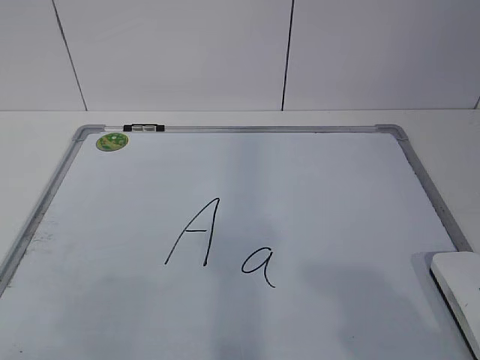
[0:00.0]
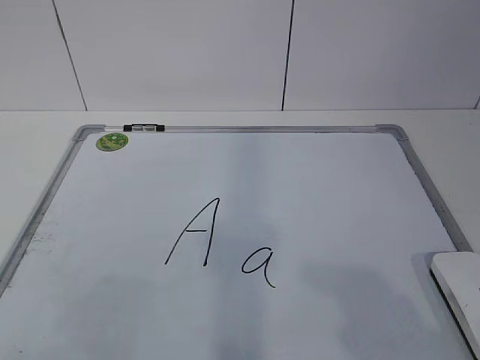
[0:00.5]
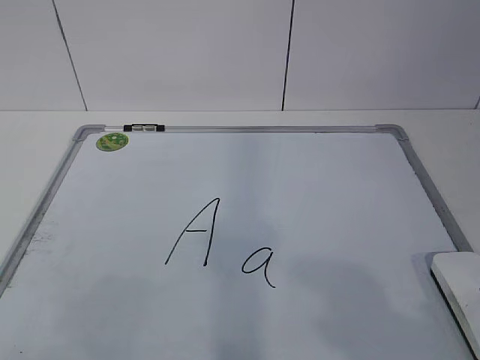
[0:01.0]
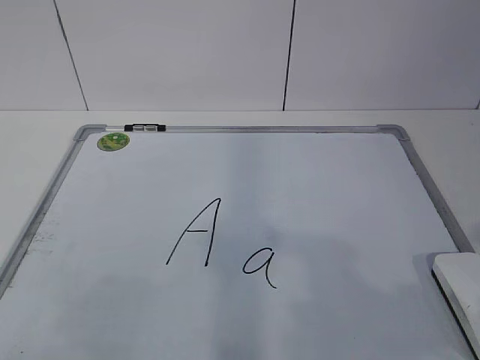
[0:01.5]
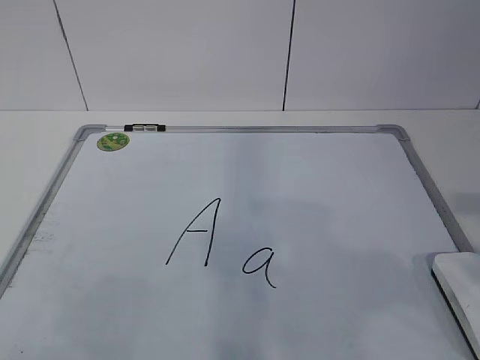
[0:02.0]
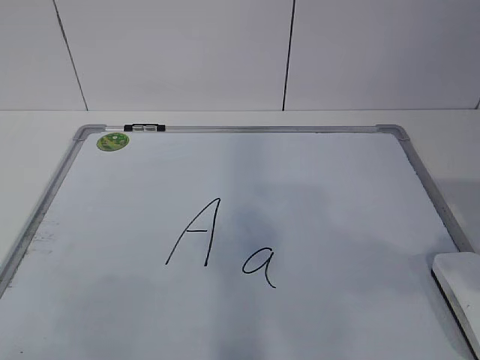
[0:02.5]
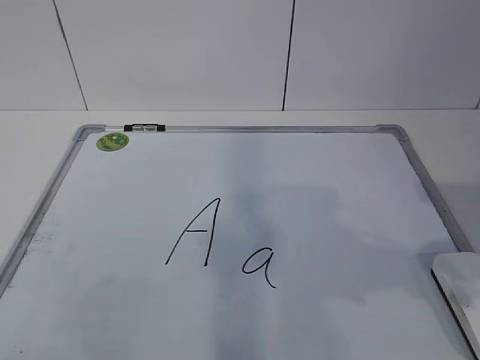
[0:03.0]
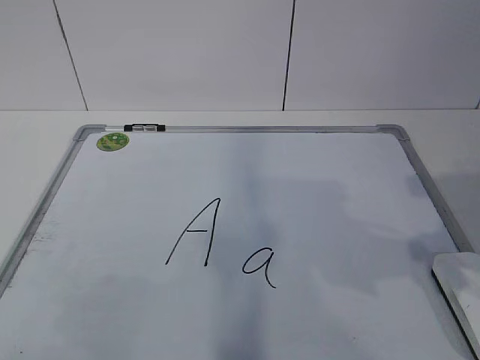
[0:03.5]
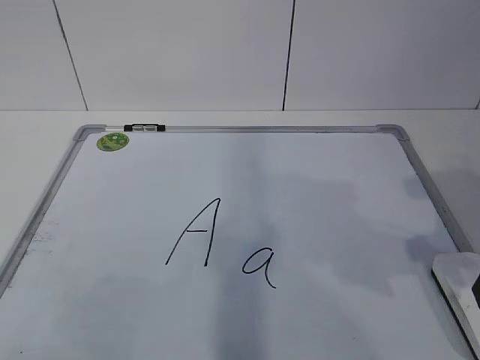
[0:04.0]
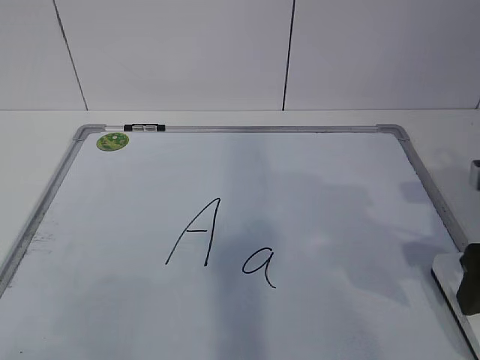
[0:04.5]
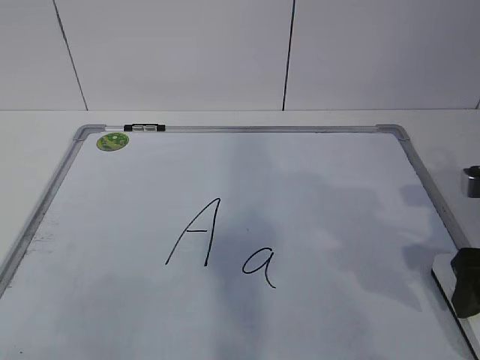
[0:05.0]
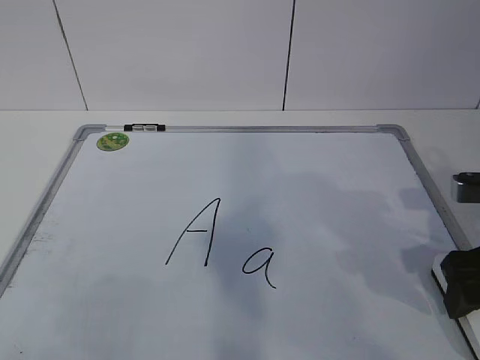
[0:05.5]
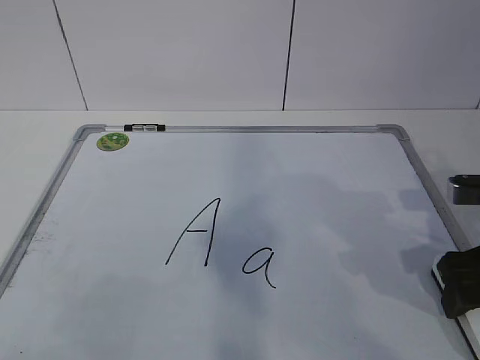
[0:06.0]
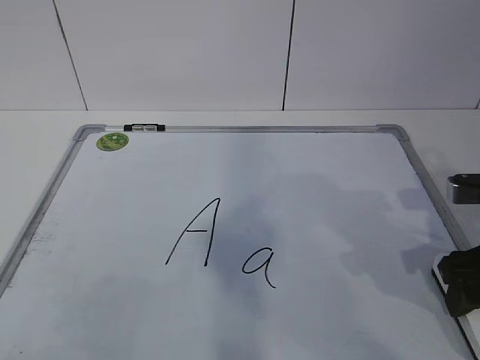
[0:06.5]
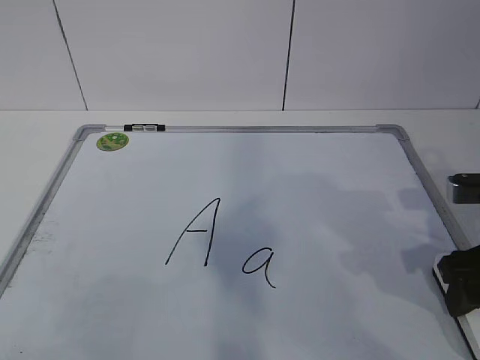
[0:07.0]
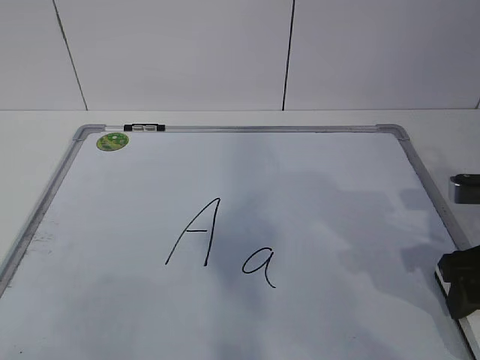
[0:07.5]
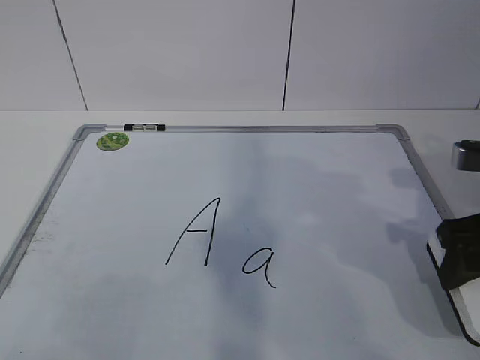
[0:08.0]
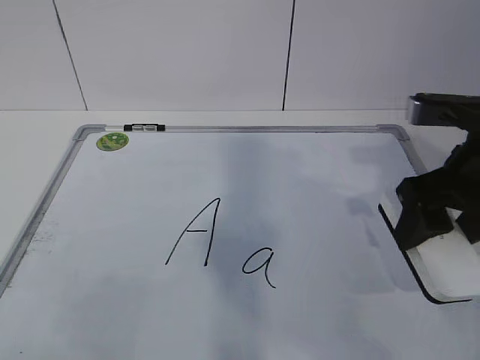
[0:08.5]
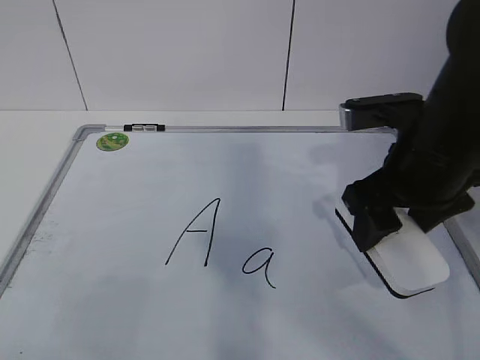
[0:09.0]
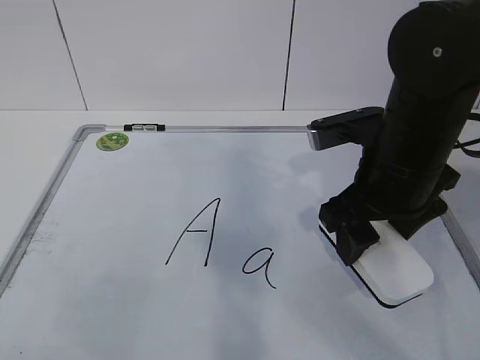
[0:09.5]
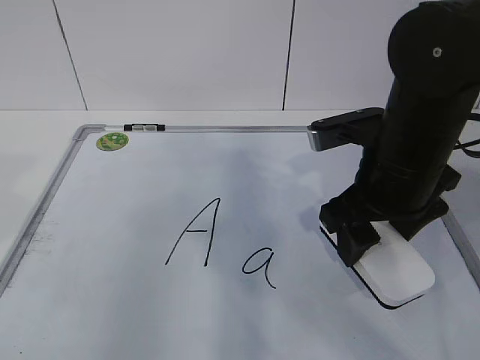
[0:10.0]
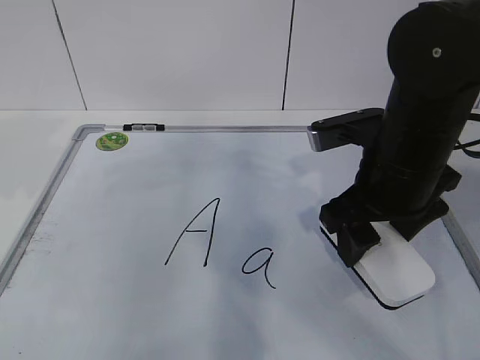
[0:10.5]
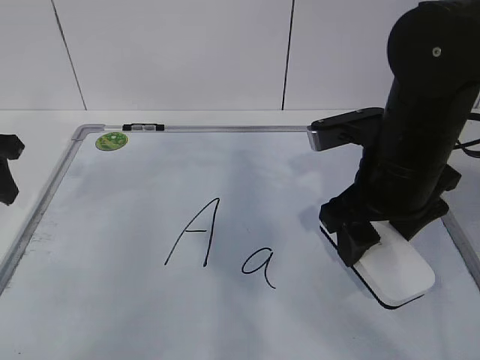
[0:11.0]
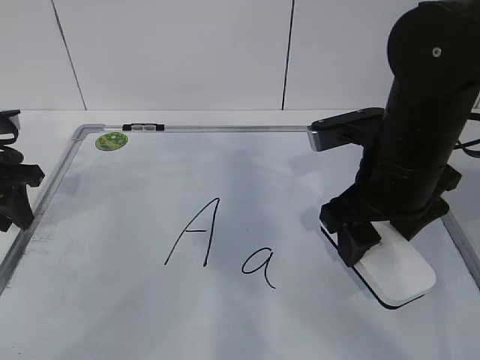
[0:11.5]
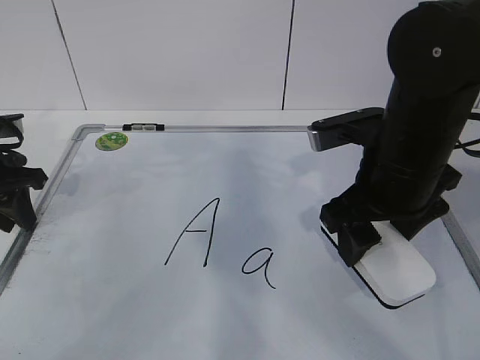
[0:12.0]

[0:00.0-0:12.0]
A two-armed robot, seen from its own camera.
Task of the whole recording: pick up the eraser on the blackboard and erase the letter "a".
Step, 0:06.5 to 0:11.5: Hold the drawing board steady with your left hand.
0:02.0 to 0:04.0: The right gripper moves forward and downward, roughly 15 cm, and opens its fingers.
0:04.0 to 0:06.0: The right gripper is displaced downward by approximately 5 cm.
0:06.0 to 0:08.0: The right gripper closes.
0:08.0 to 0:10.0: The left gripper shifts some 10 cm forward and upward; the right gripper goes roughly 10 cm to the left.
0:10.0 to 0:12.0: The left gripper heads forward and downward, covering roughly 30 cm.

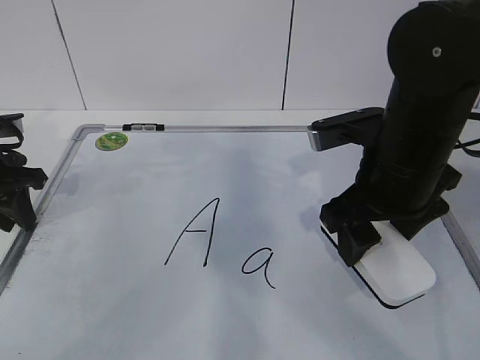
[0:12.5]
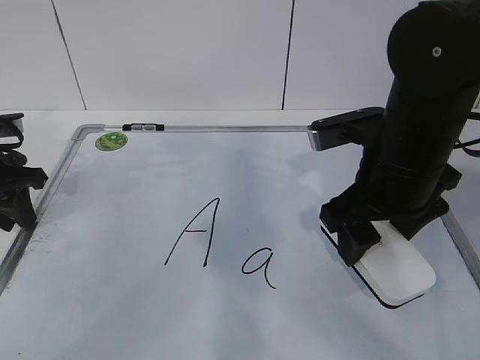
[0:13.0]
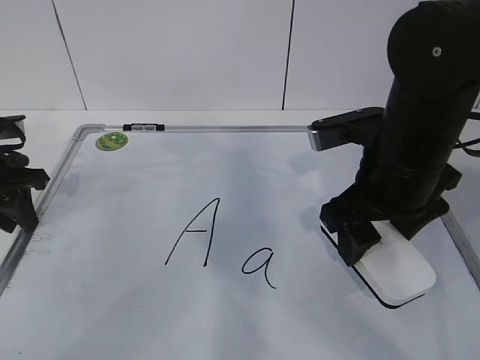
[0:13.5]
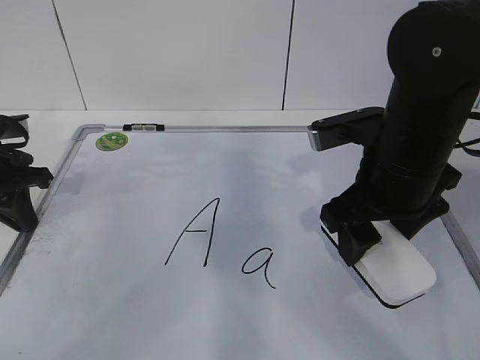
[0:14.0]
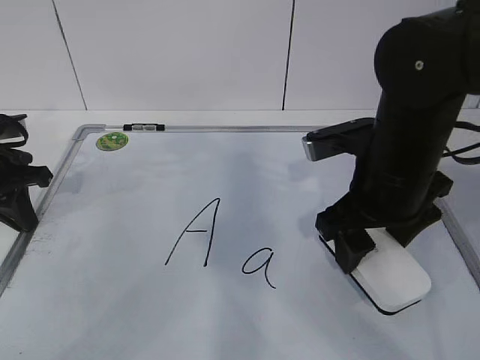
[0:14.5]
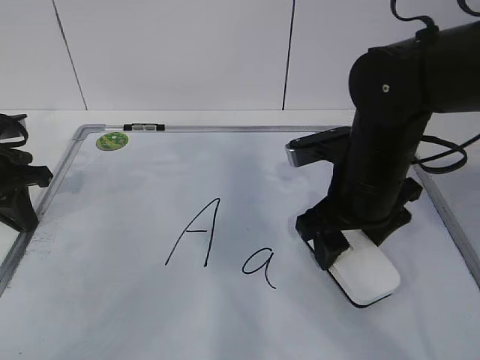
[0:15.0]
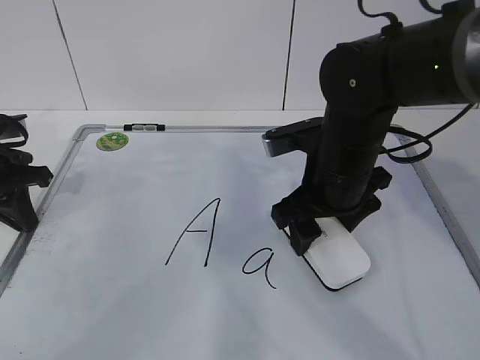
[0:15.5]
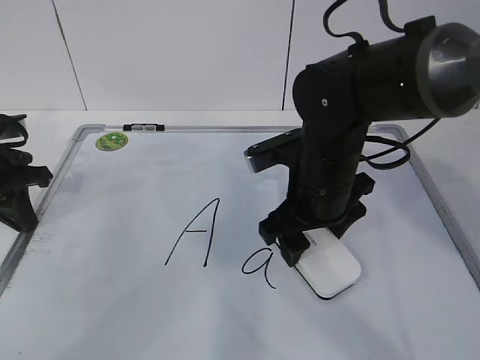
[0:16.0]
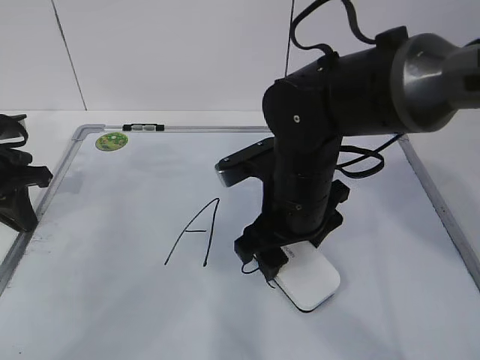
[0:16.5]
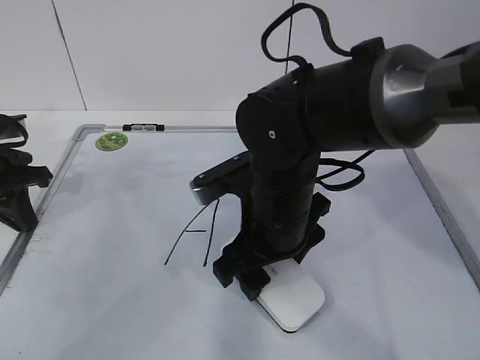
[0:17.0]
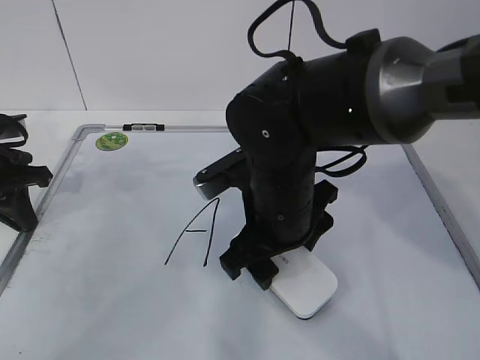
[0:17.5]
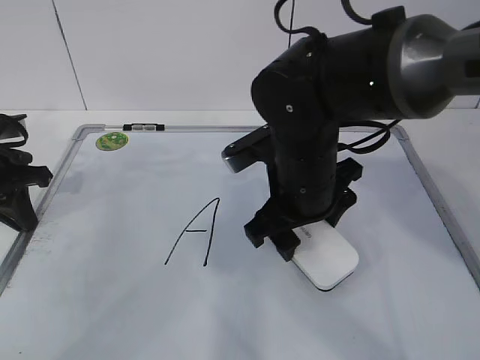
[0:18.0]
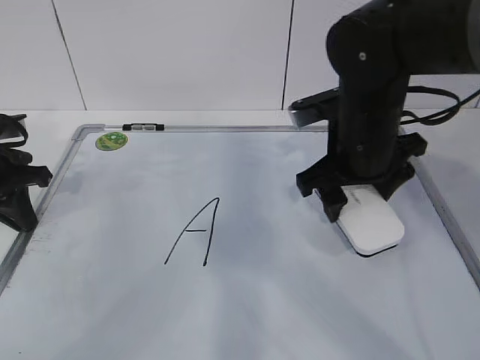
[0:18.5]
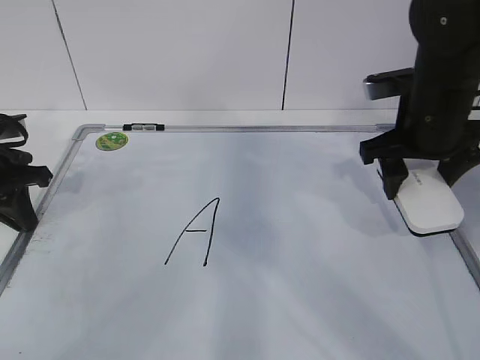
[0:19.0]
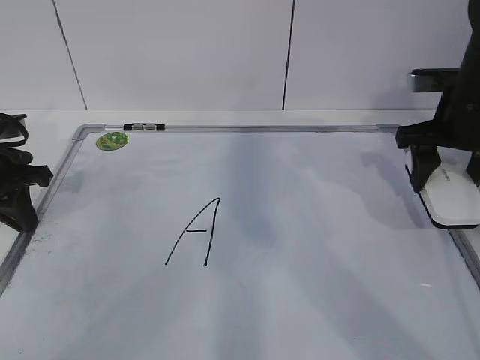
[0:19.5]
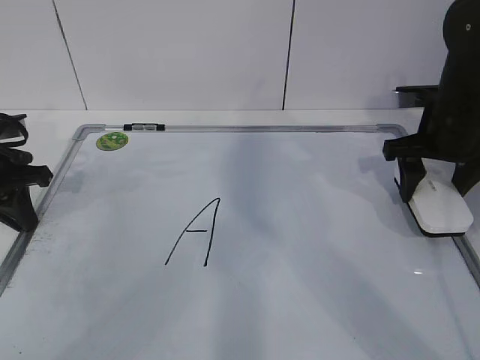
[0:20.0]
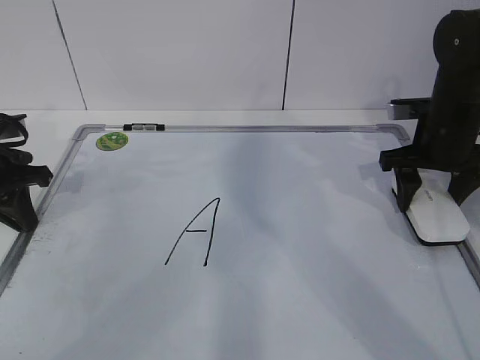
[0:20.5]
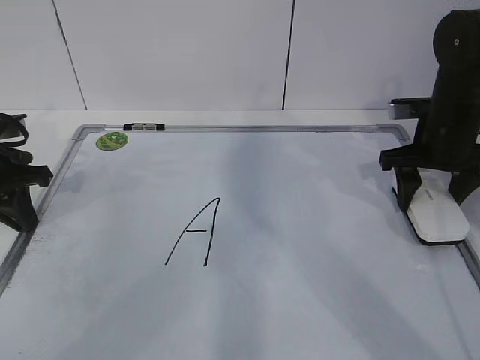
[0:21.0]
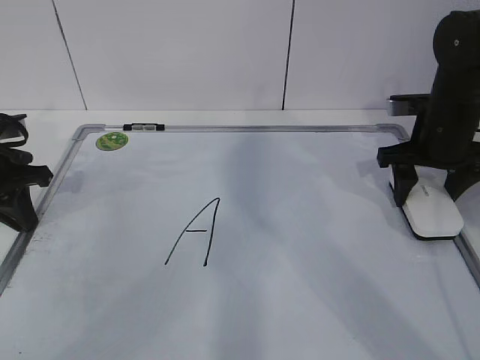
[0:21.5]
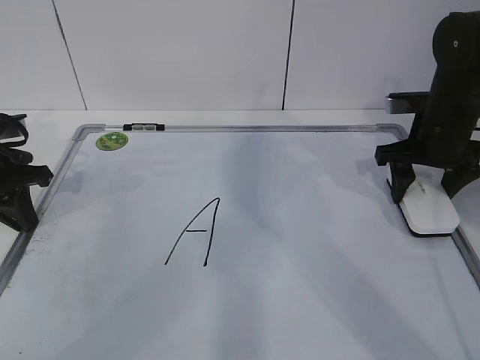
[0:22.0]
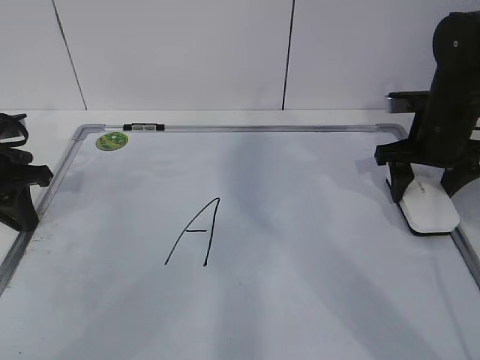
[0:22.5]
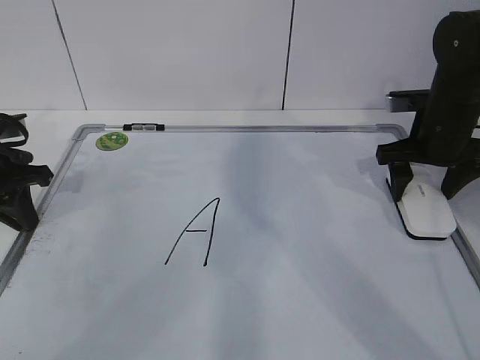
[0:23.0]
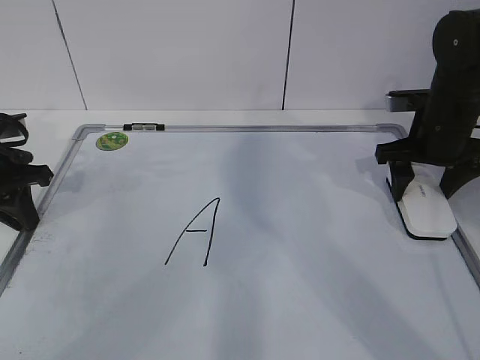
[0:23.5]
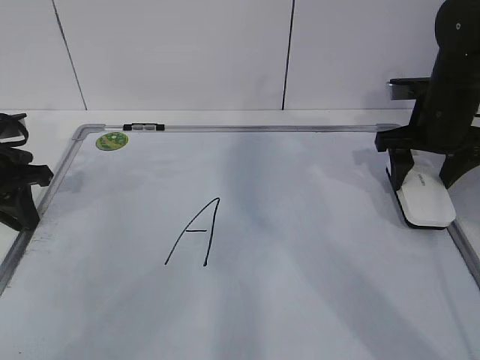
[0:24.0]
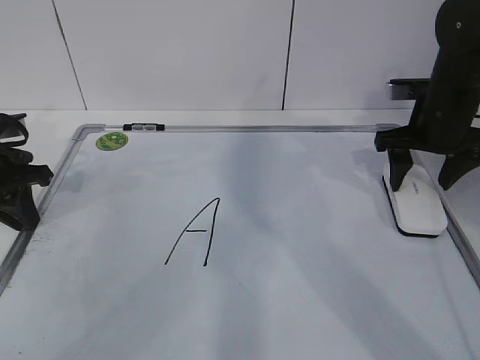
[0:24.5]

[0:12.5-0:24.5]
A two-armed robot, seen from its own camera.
Task of the whole recording: pick up the eraser on the blackboard and erase the letter "a".
Step, 0:12.5 to 0:15.0: Erase the letter a with your right hand.
Step, 0:15.5 to 0:20.0: Put down the eraser with your right hand.
0:12.5 to 0:14.5: The left gripper closes its fingers.
0:14.5 to 0:16.5: The right gripper shifts some 10 cm to the left.
0:16.5 to 0:18.5: The right gripper shifts some 5 cm to the right.
0:18.5 to 0:20.5: The right gripper heads to the right and forward, covering roughly 15 cm.
0:20.5 to 0:24.5: The grippers stay close to where they were, moving slightly.

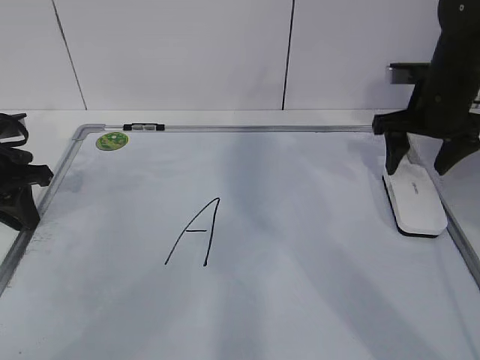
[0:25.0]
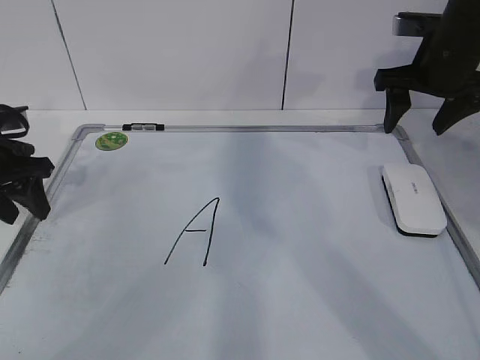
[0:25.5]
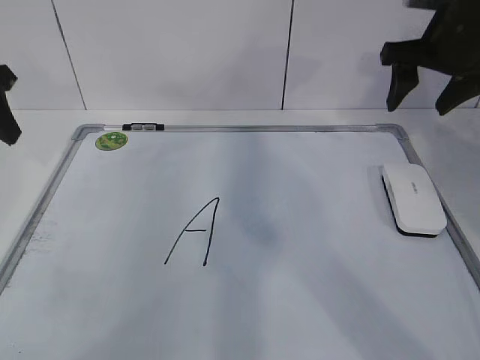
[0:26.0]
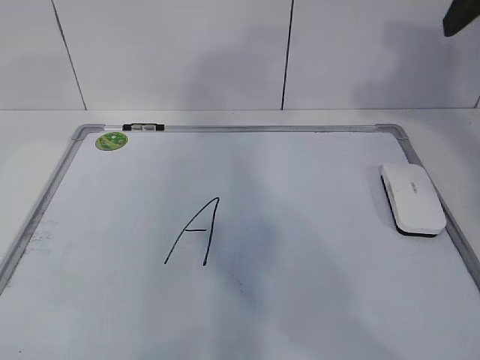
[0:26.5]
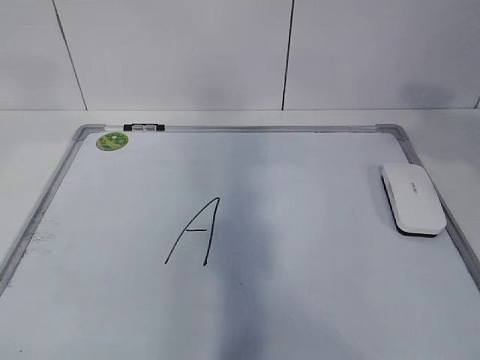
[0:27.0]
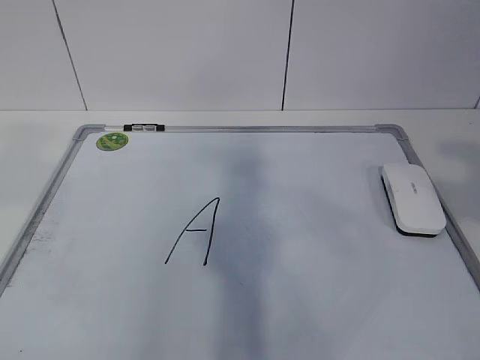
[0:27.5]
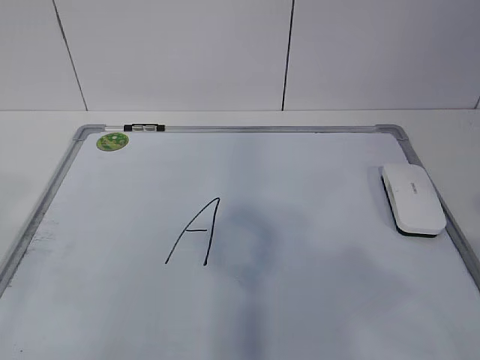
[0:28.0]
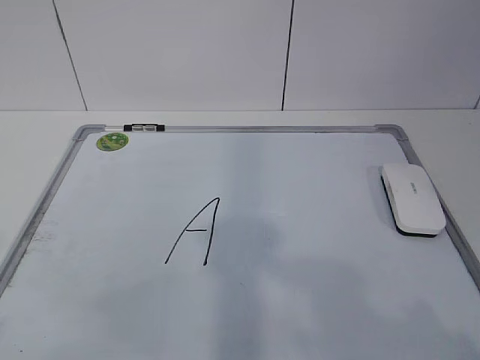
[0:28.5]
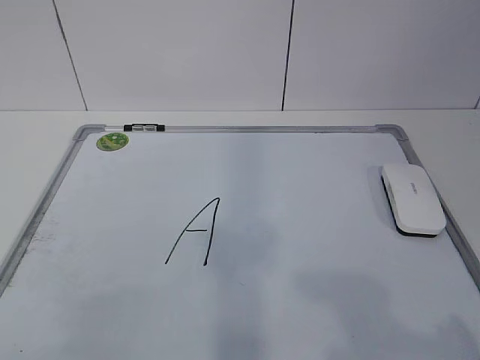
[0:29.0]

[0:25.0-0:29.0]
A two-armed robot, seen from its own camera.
Task of the whole recording: pick up the eraser on the blackboard and erase the letter "a".
0:25.0 to 0:27.0: The left gripper moves upward and backward, some 35 cm. Meanwhile the right gripper shifts about 30 cm backward and upward.
0:27.0 to 0:29.0: The right gripper shifts roughly 25 cm backward and downward. Meanwhile the left gripper moves downward and backward, some 25 cm.
